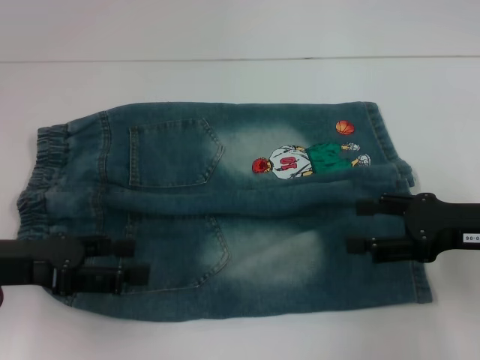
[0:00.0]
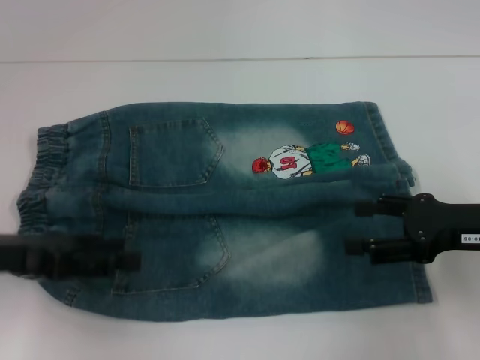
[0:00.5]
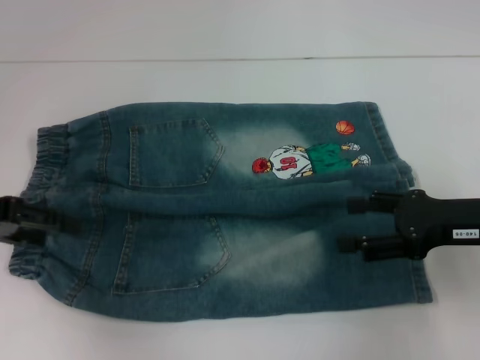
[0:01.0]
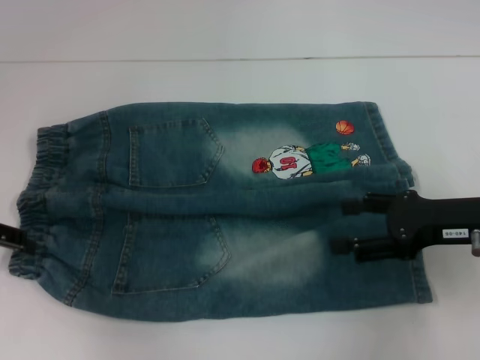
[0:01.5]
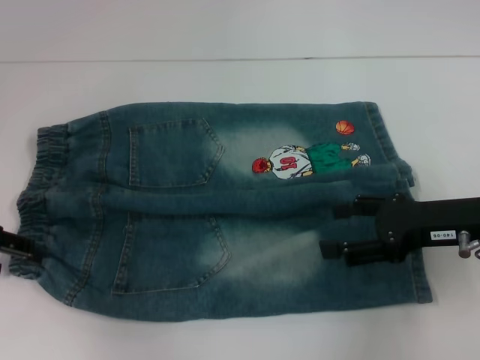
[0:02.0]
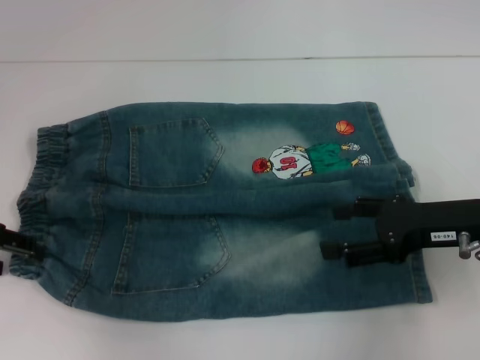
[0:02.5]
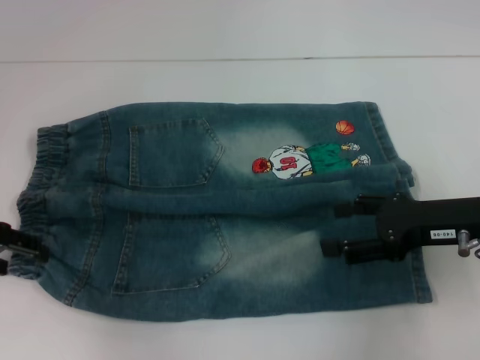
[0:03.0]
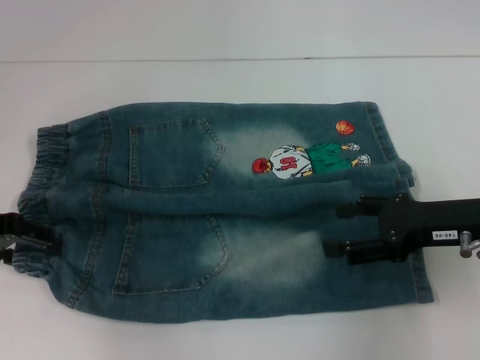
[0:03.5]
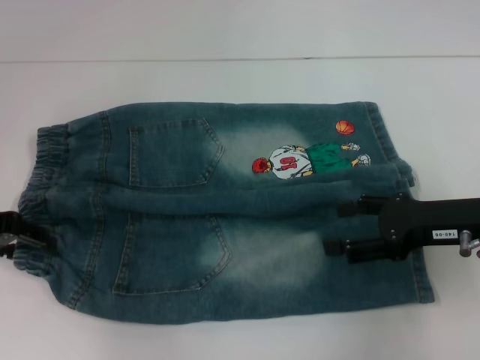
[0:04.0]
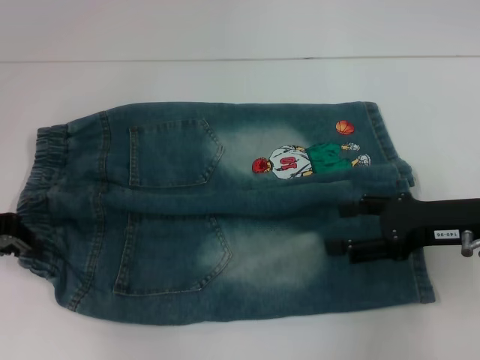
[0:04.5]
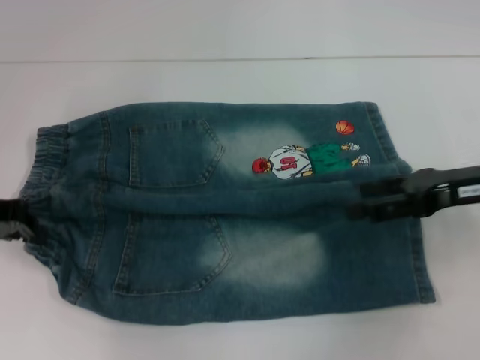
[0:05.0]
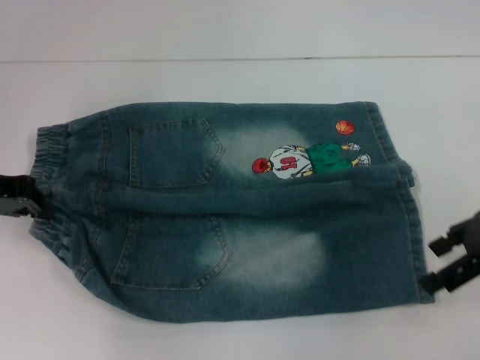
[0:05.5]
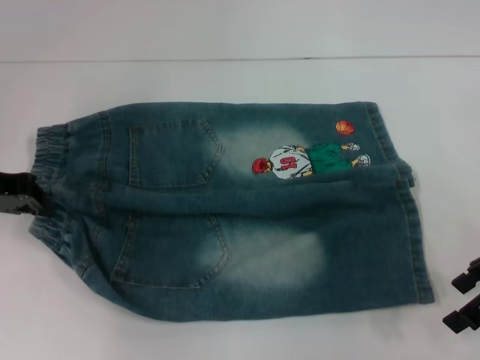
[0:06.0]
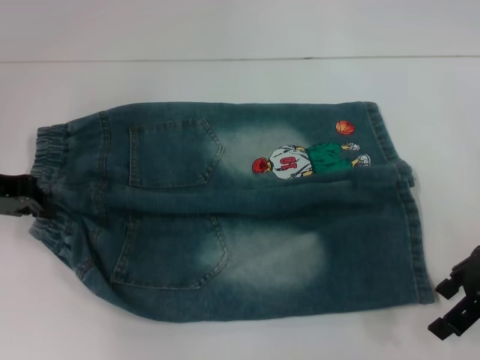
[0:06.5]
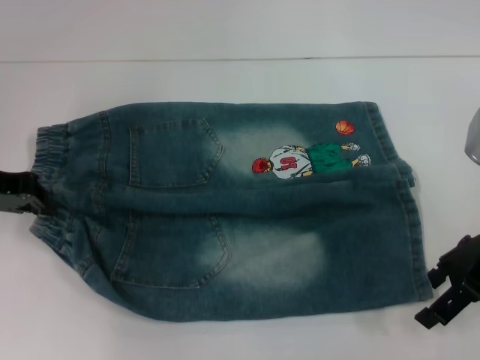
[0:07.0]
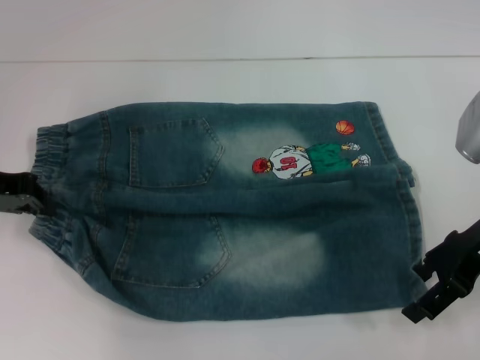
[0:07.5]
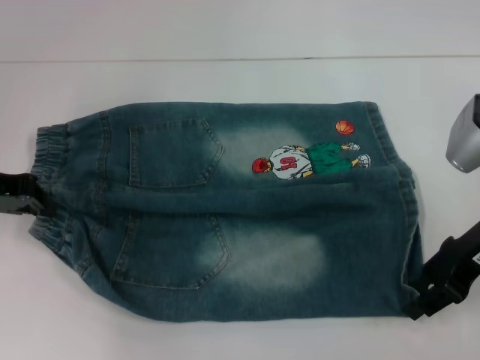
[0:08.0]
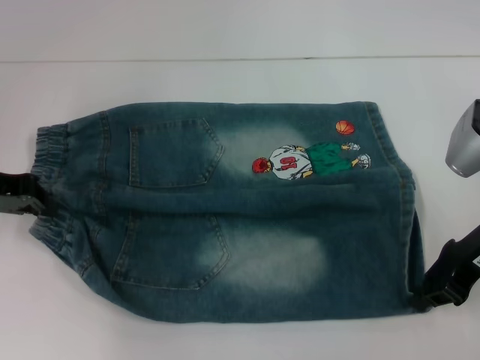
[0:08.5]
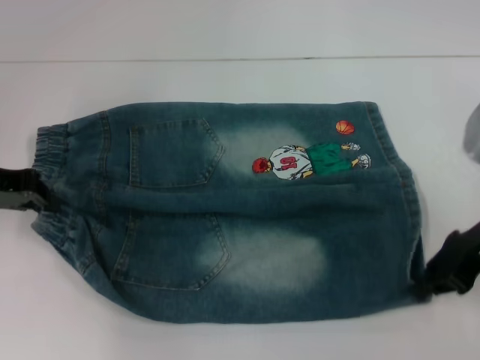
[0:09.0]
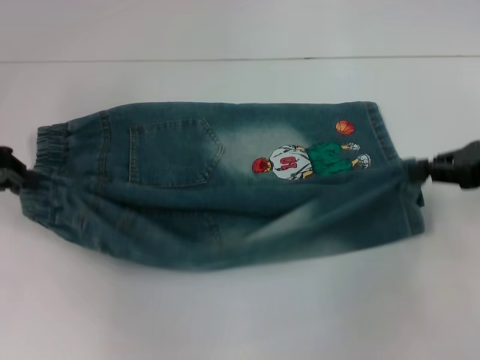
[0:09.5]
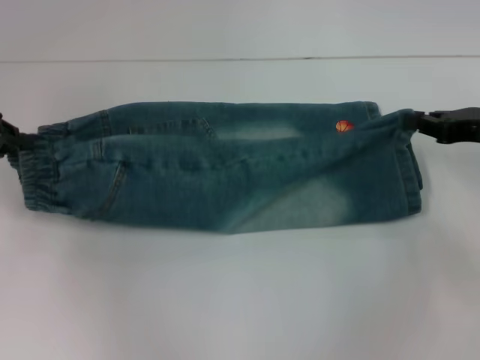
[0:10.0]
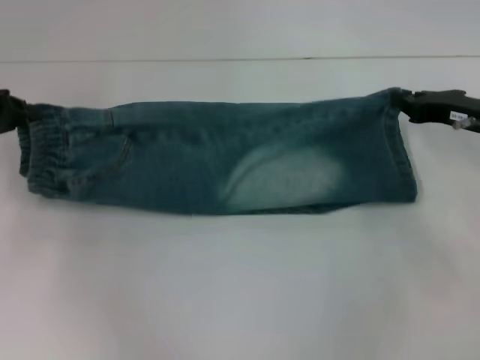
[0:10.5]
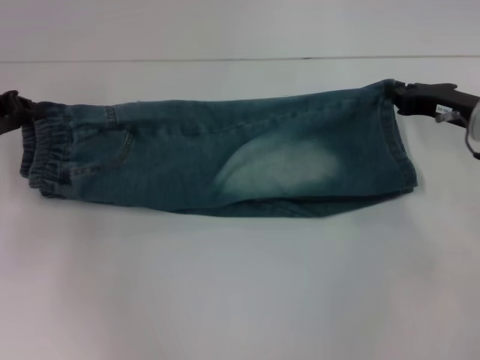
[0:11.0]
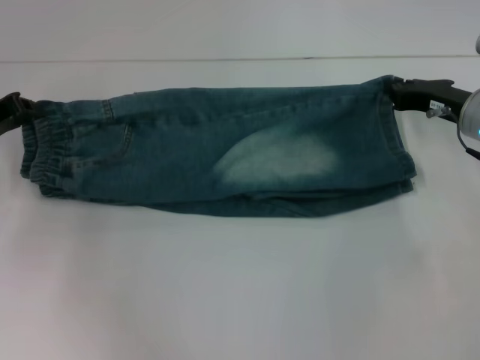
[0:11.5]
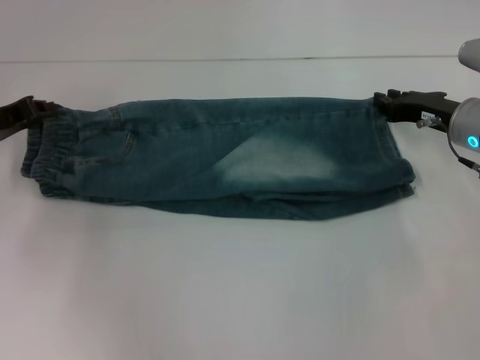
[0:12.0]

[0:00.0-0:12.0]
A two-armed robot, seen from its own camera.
Step, 0:00.0 to 0:04.5: Hold the lower left waistband with your left hand.
Step, 0:05.0 to 0:08.5: Grab the lower right pant leg with your right hand.
0:00.0 to 0:02.0: The left gripper heads forward and to the left, covering about 10 cm.
0:02.0 to 0:04.0: The grippers make only small movements.
0:04.0 to 0:06.0: The left gripper closes, while the right gripper ends up about 5 cm from where it was.
0:06.0 to 0:08.0: The right gripper ends up approximately 5 cm from where it was.
0:08.0 to 0:10.0: The right gripper moves to the right, approximately 5 cm, and closes its fingers.
0:10.0 to 0:12.0: The right gripper shifts some 5 cm to the left; the left gripper moves approximately 5 cm.

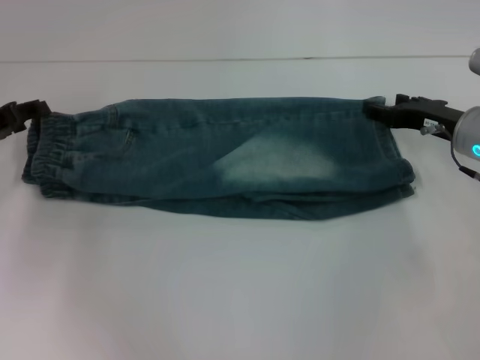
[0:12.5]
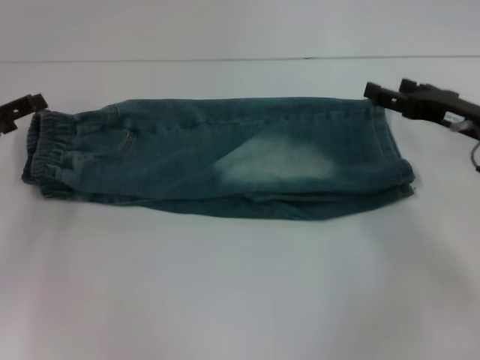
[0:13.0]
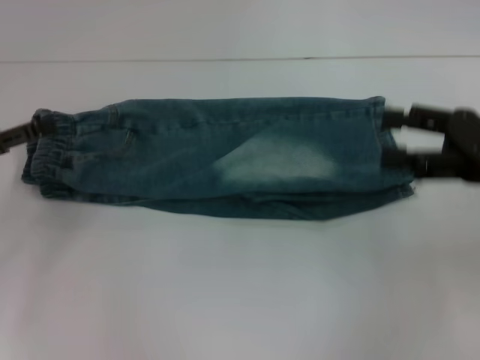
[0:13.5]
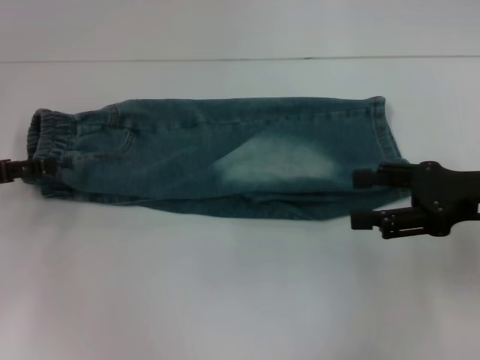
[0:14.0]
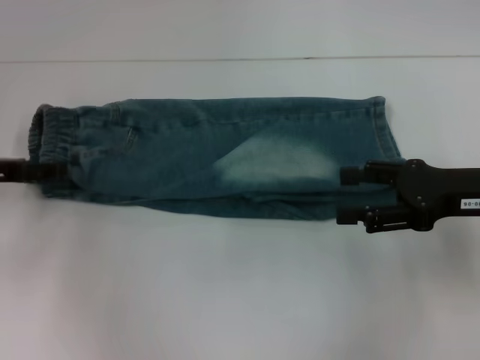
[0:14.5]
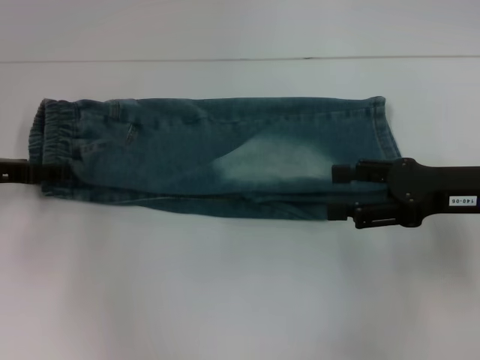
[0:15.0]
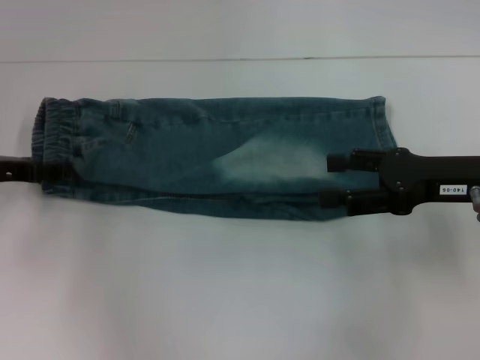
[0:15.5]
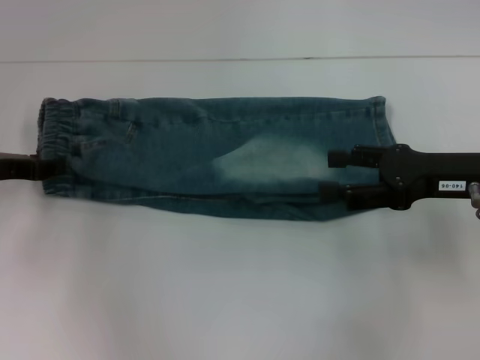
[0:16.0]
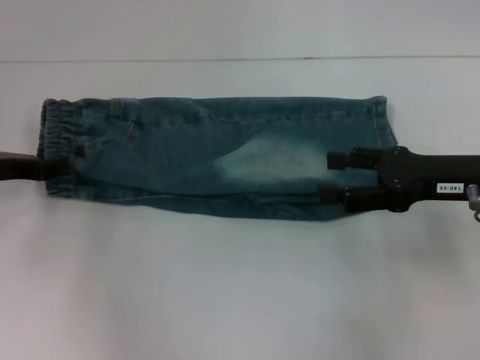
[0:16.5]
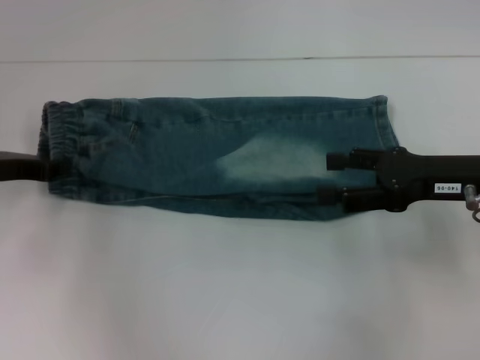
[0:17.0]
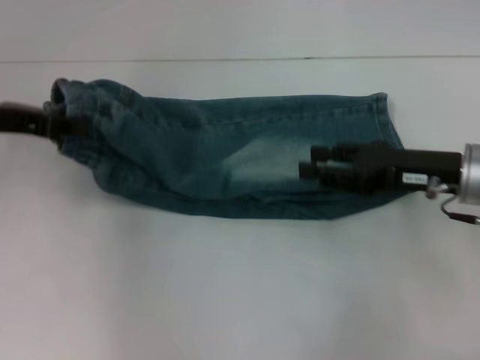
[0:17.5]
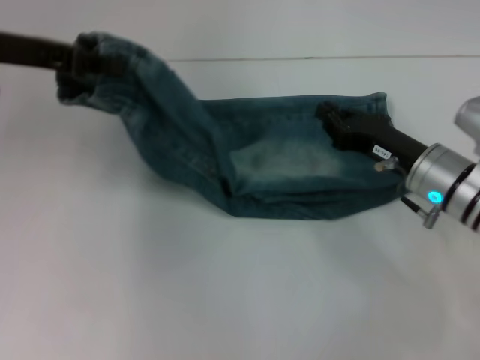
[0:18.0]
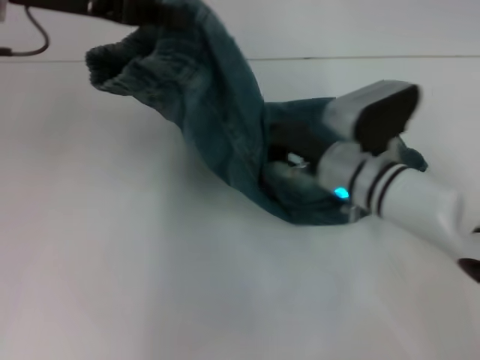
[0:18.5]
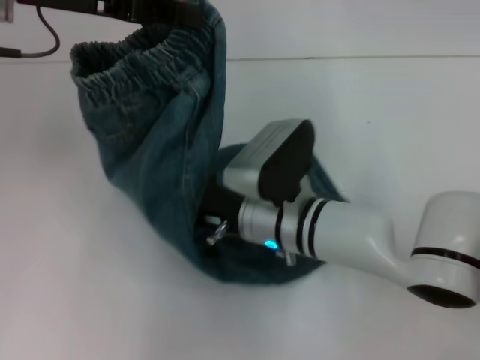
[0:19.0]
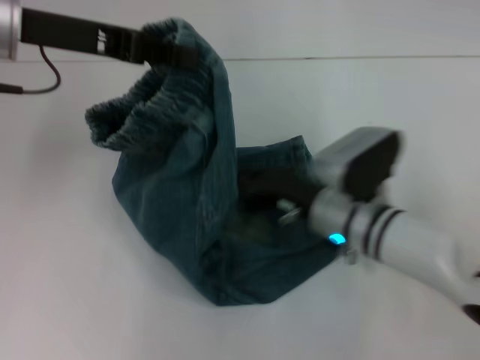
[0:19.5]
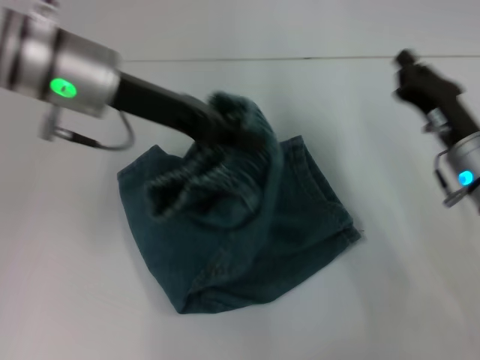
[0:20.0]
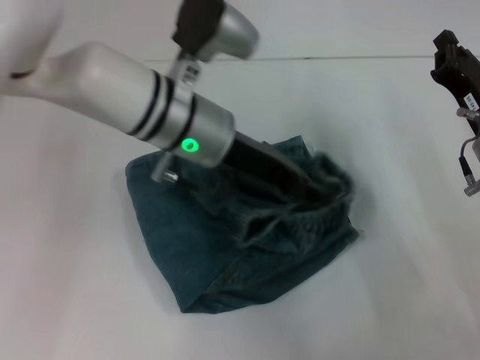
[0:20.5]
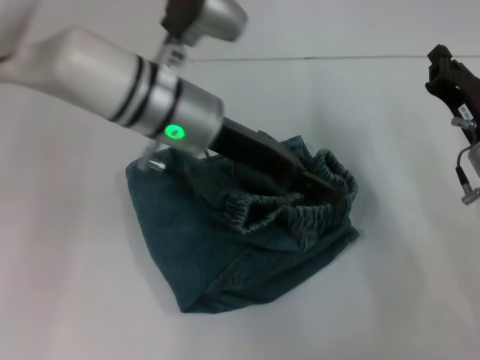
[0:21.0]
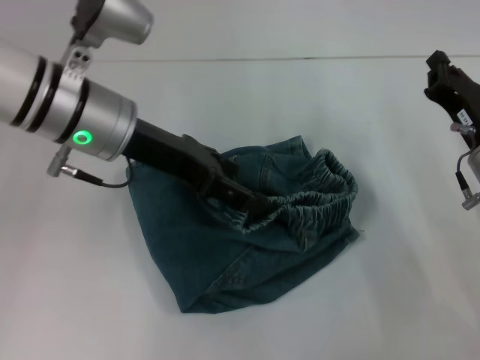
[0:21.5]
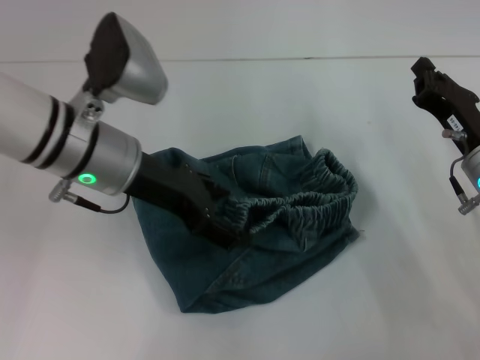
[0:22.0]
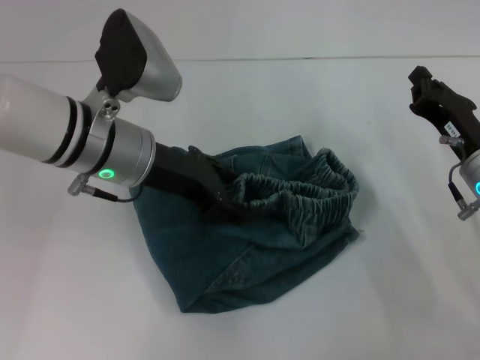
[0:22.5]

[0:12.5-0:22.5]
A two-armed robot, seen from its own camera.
Step, 0:12.5 to 0:16.5: Hold the waistband with your left hand.
Step, 0:17.0 to 0:19.0: Press the middle of the pants with your right hand.
Step, 0:19.5 to 0:21.0: Fold to the right with your left hand.
0:12.5 to 0:14.5: The right gripper is displaced backward and upward by about 10 cm, and opens its fingers; the left gripper opens.
0:14.5 to 0:16.5: The left gripper closes up.
0:16.5 to 0:18.5: The right gripper travels to the left and downward by about 15 cm, and closes. The left gripper is displaced upward and to the right by roughly 20 cm.
0:18.5 to 0:20.5: The left gripper shifts roughly 20 cm to the right and downward; the right gripper goes roughly 15 cm to the right.
0:20.5 to 0:22.5: The left gripper moves to the left, approximately 5 cm, and opens up.

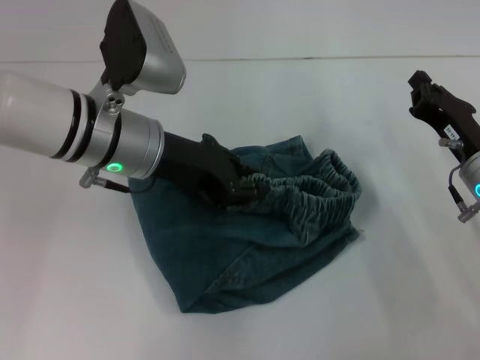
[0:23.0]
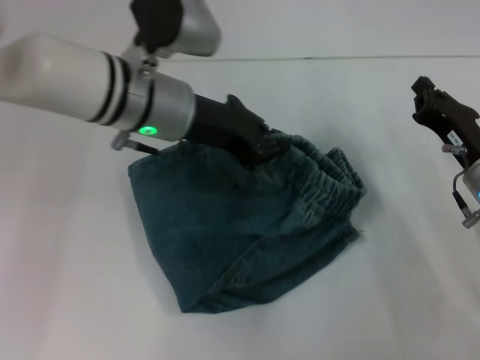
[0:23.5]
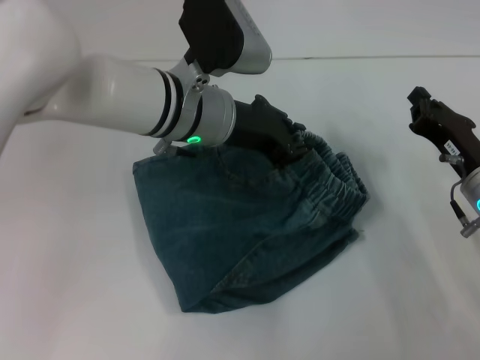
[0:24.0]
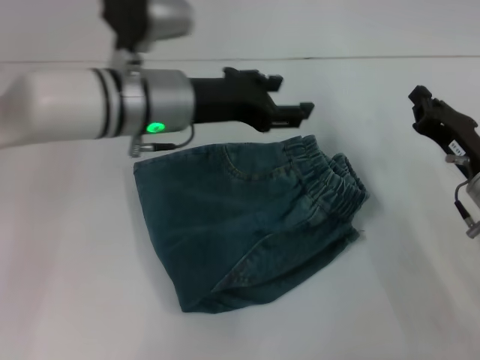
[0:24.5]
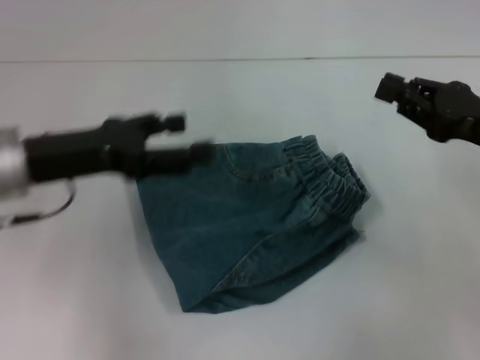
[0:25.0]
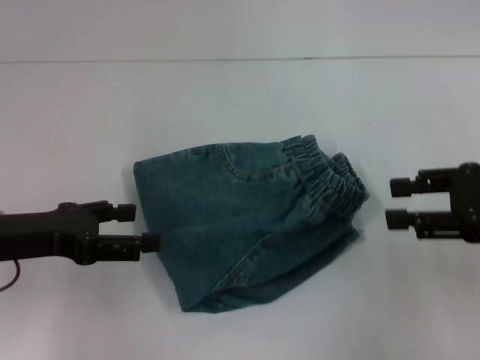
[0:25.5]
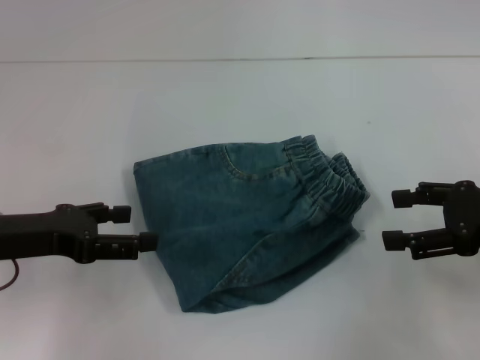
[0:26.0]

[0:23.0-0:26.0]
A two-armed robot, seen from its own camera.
0:23.0 to 0:24.5: The left gripper closes, then reopens.
0:24.5 to 0:26.0: The left gripper is displaced to the left and backward by some 20 cm, and opens up. Meanwhile the right gripper travels upward by approximately 10 cm, and opens its fingers.
